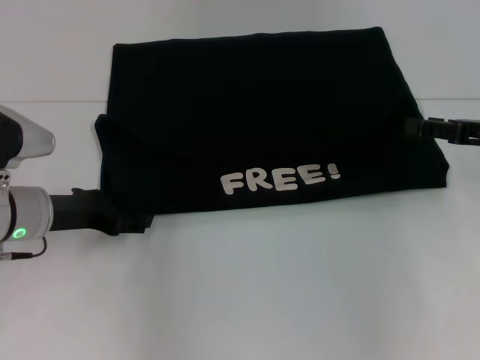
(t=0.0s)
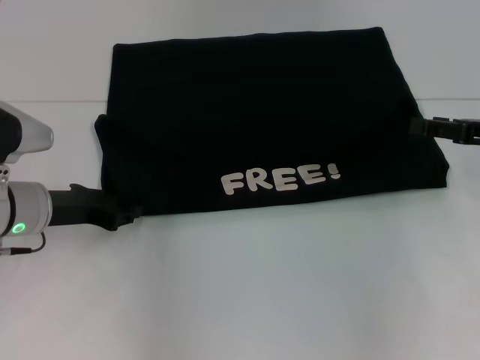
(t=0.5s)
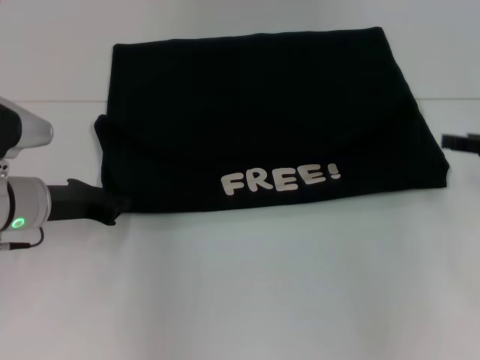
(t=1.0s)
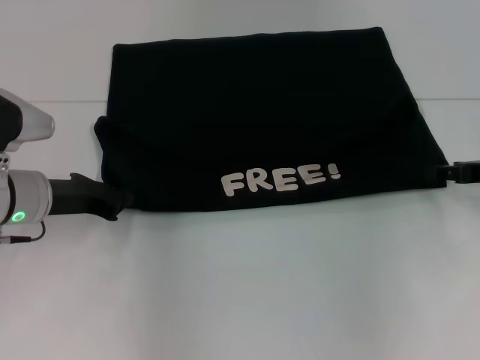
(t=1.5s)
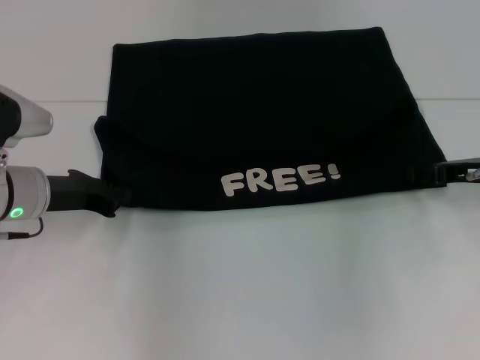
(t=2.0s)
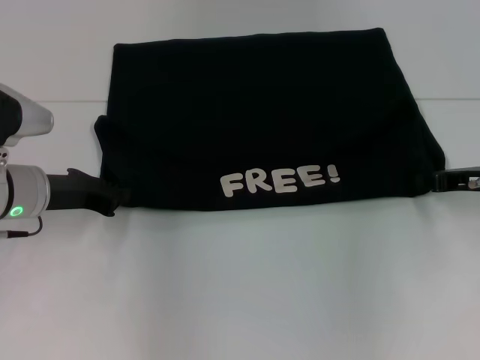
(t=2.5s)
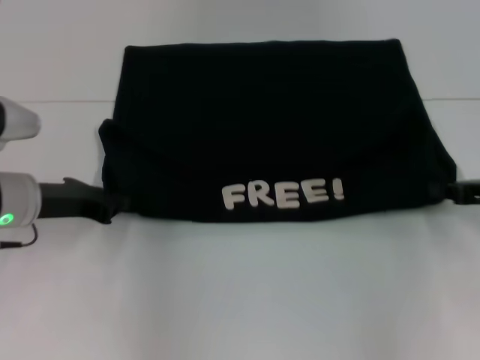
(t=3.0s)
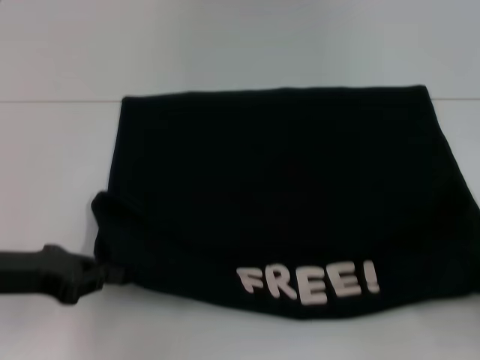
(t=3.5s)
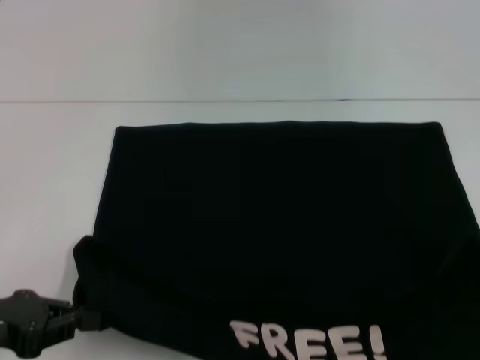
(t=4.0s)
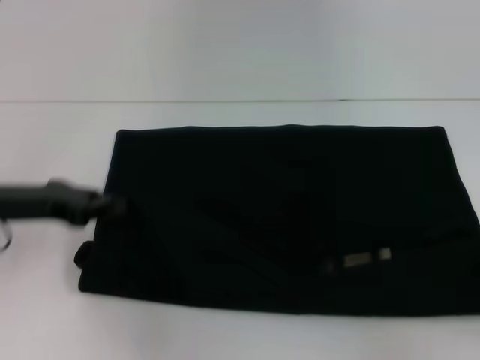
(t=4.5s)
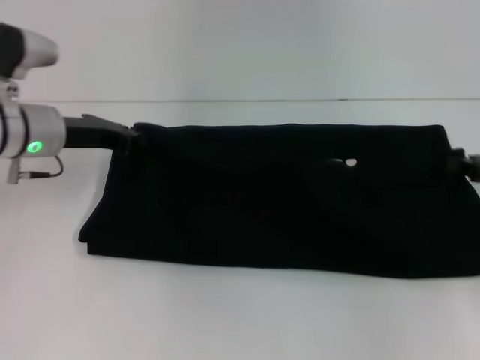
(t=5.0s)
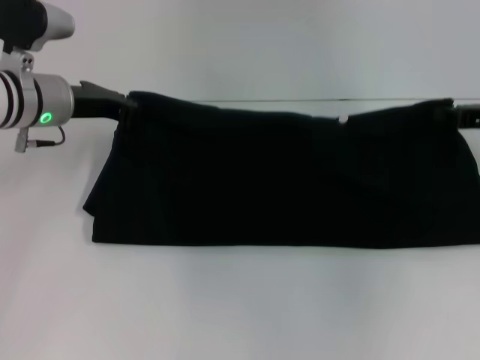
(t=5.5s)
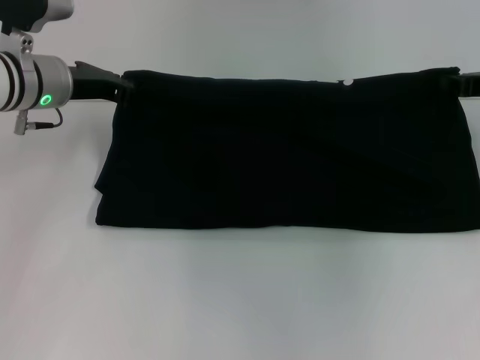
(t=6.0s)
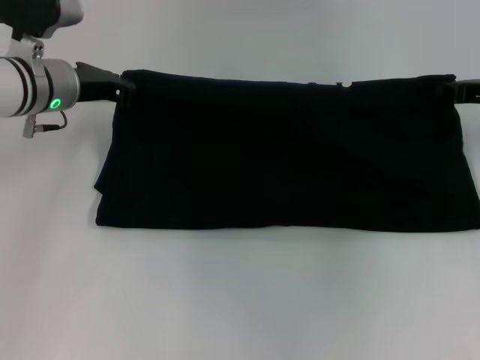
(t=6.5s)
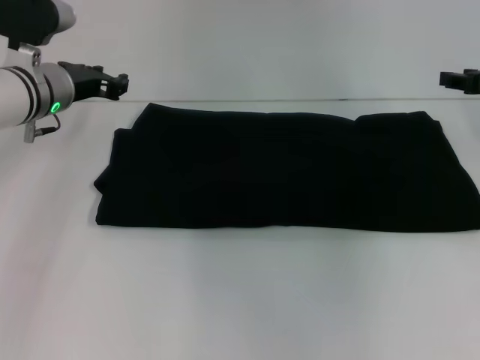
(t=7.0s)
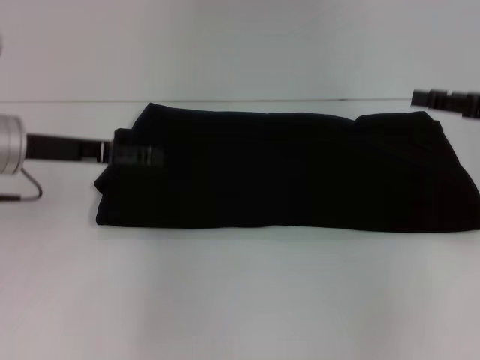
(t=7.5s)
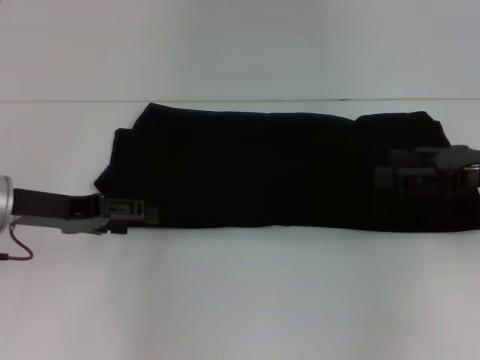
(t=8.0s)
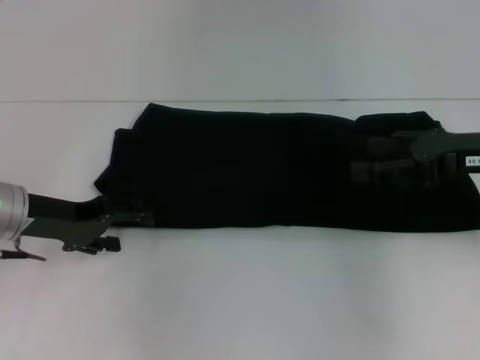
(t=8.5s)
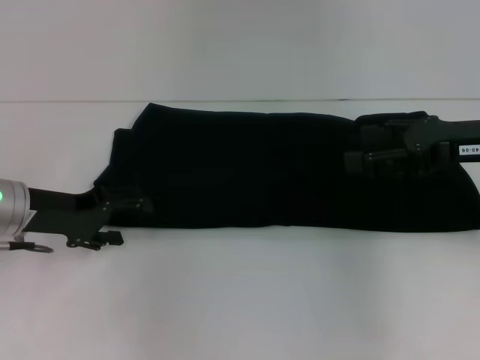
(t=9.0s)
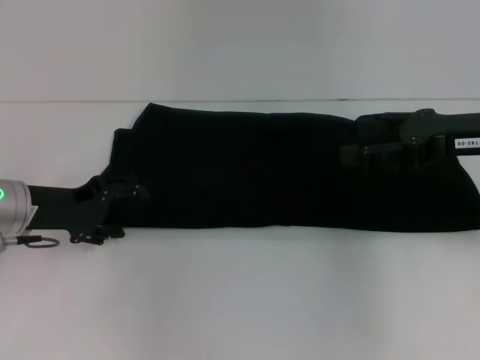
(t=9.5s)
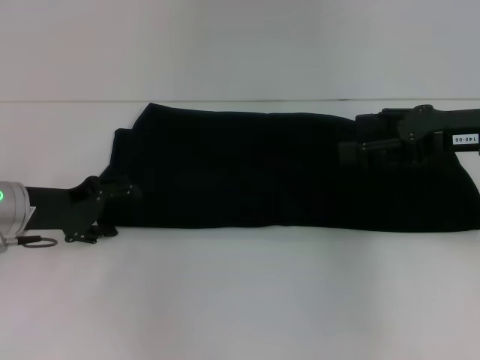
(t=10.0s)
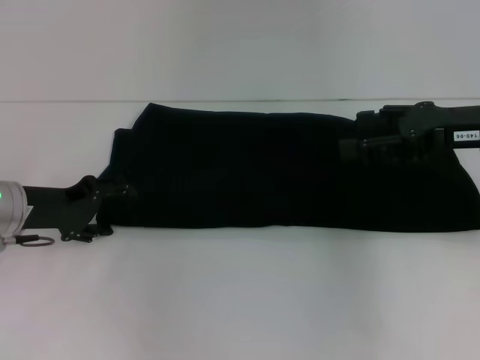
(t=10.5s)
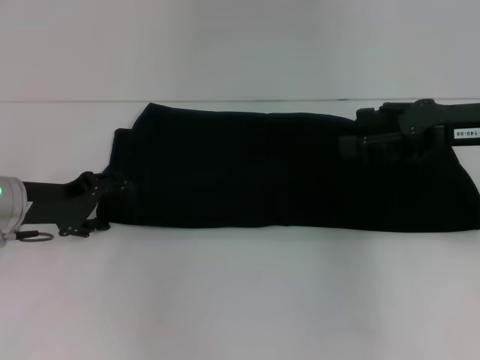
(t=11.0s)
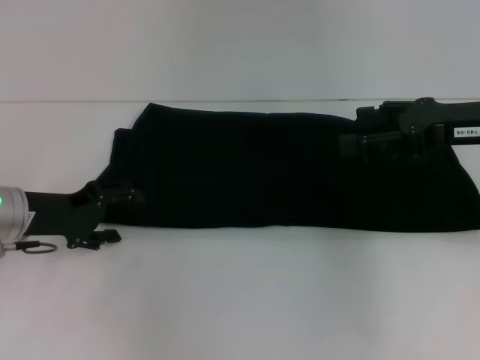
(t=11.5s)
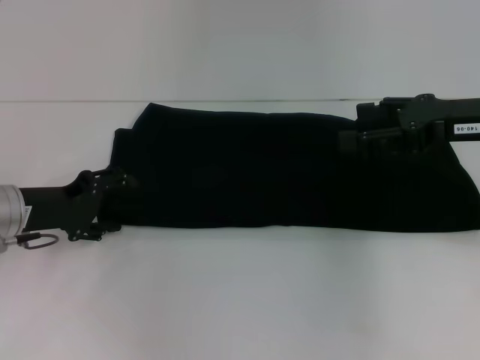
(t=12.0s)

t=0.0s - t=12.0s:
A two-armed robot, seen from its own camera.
Step, t=0.0s - t=4.0s: Pull the clothes with your left hand.
Step, t=0.0s - t=4.0s: Pull the clothes with your right hand.
Step, t=4.5s - t=7.0s: Fold the clothes with your right hand.
t=0.0s - t=2.0s: The left gripper closes its fingers. The right gripper moves approximately 5 cm.
t=2.0s - t=4.0s: The left gripper moves backward and to the left, about 15 cm; the right gripper goes about 25 cm backward, and closes.
t=4.0s - t=6.0s: Both grippers move forward, about 25 cm.
t=6.0s - t=8.0s: The two grippers go some 10 cm backward. The left gripper opens up, while the right gripper opens up.
t=8.0s - t=10.0s: The right gripper ends up roughly 5 cm from where it was.
t=10.0s - t=12.0s: The grippers make only small movements.

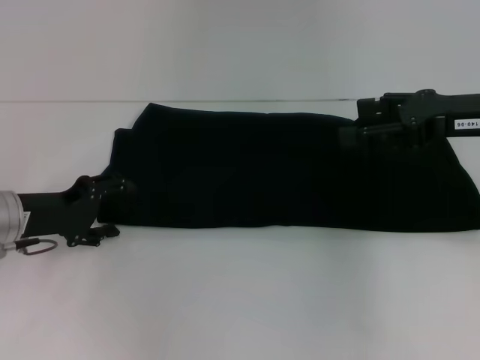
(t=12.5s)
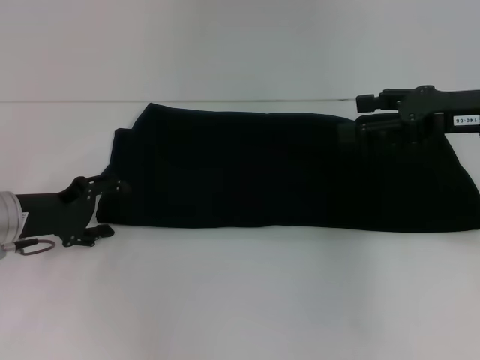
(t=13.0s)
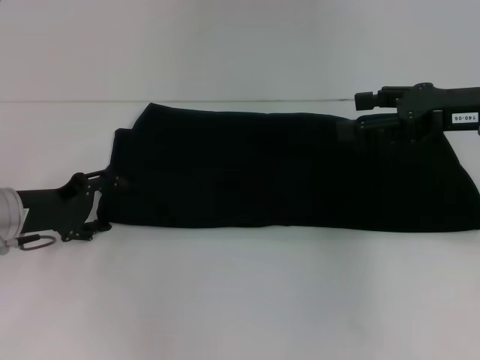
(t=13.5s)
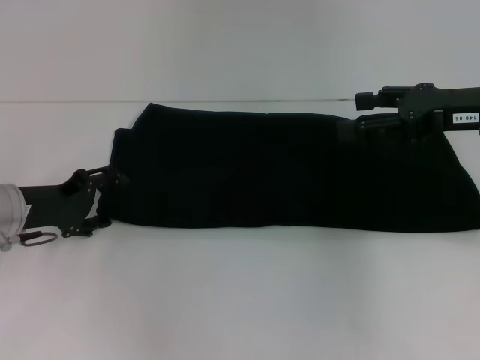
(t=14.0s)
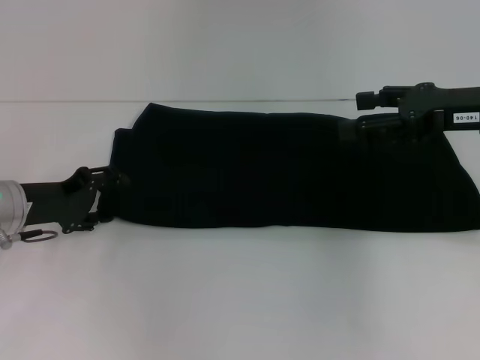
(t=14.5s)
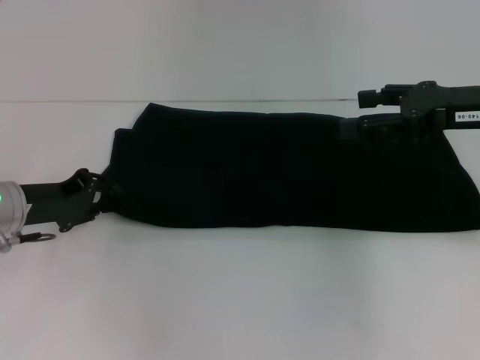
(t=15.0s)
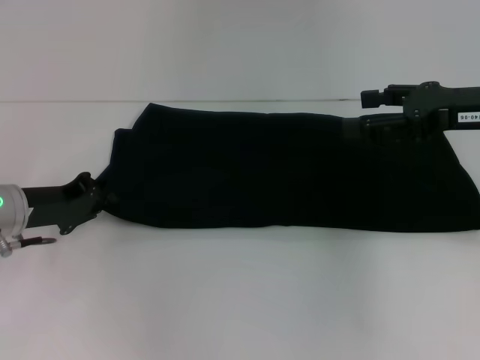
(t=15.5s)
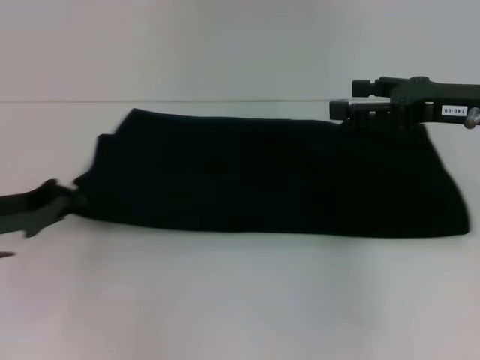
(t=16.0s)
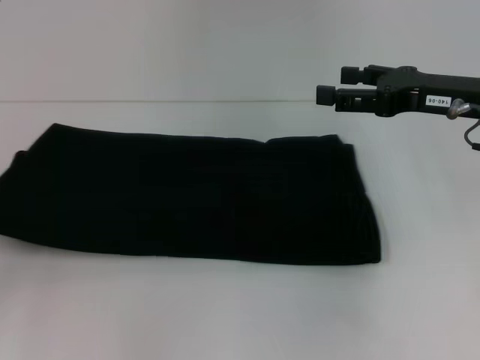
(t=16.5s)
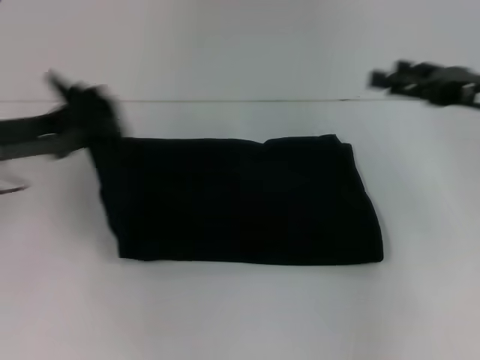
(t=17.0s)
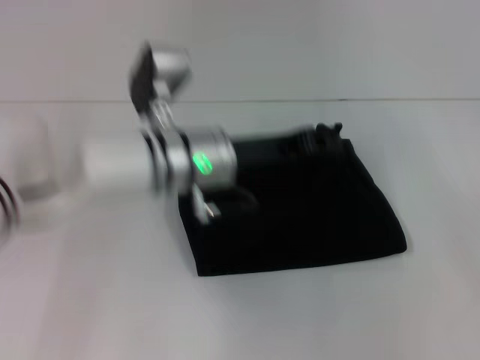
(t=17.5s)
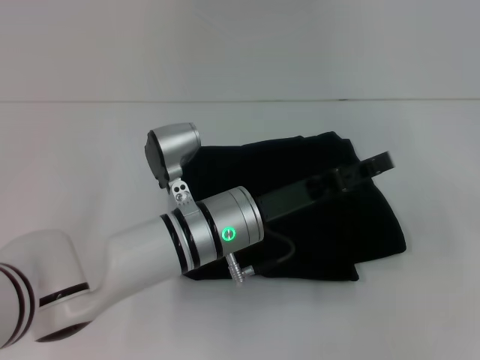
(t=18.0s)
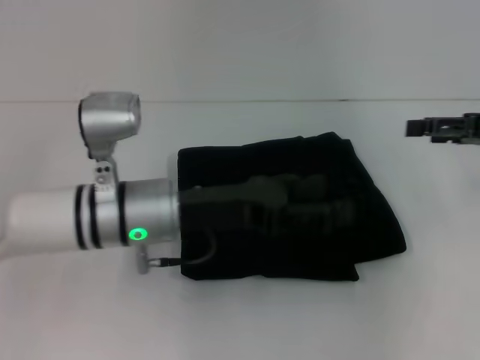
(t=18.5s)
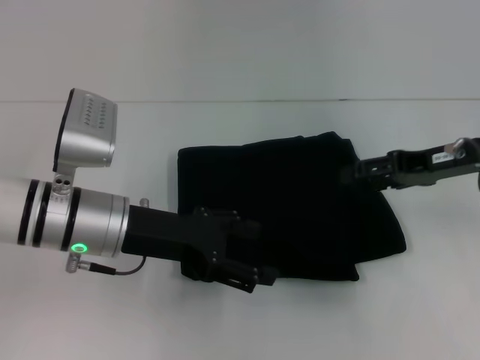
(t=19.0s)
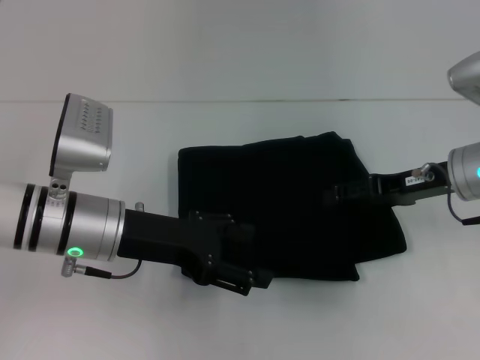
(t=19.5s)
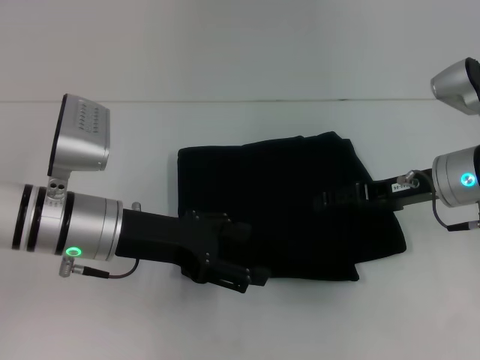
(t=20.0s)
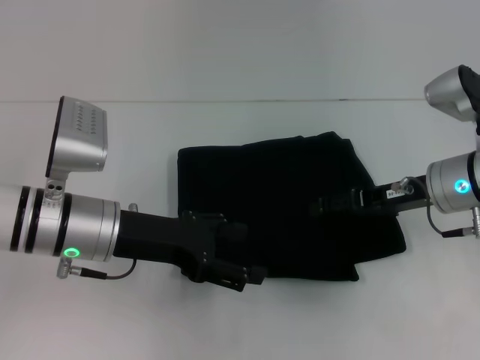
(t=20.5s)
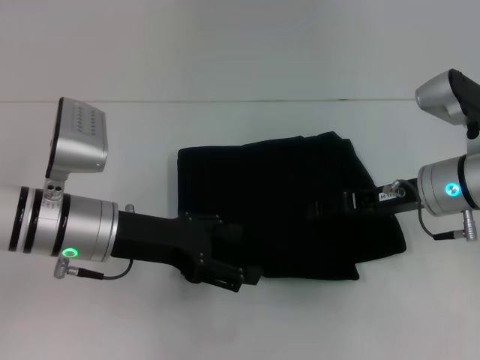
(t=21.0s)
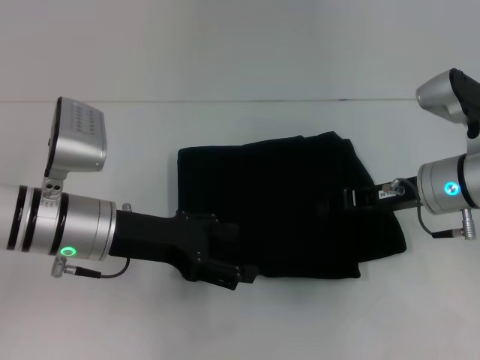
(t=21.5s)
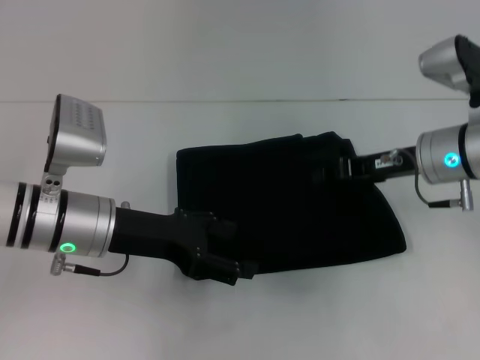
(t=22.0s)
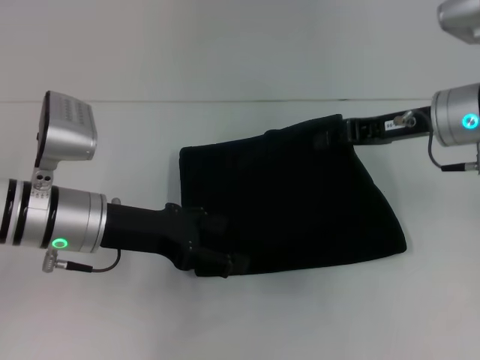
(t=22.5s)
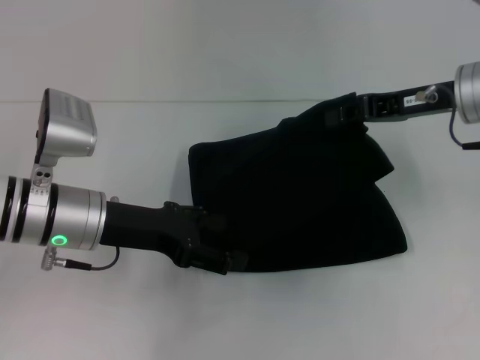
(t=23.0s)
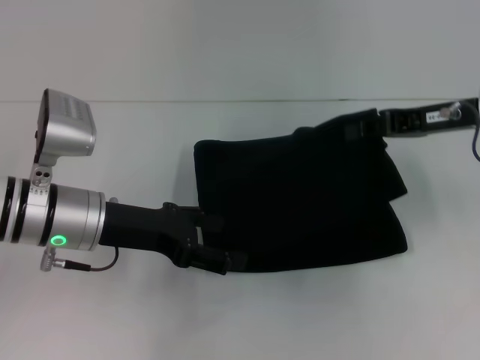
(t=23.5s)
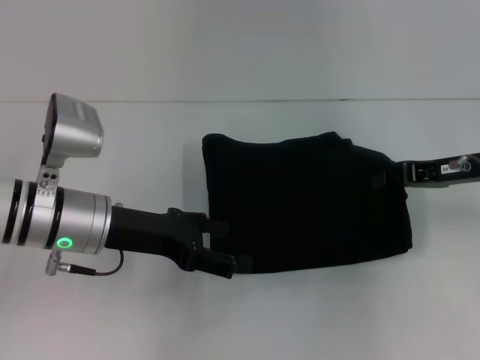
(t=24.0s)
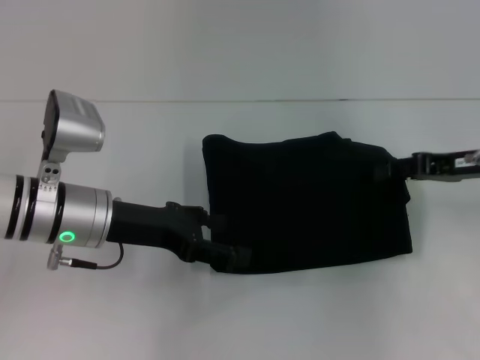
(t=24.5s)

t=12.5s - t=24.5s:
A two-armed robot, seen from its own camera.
Step, t=12.5s - t=18.0s: Fold the clothes with your left hand.
t=12.5s - t=14.5s: The grippers stay close to where they were, moving slightly.
t=14.5s - t=16.5s: The left gripper heads to the left and backward, covering approximately 15 cm, and closes its fingers.
t=16.5s - t=18.5s: The right gripper is displaced to the right by some 10 cm. Meanwhile the left gripper goes approximately 30 cm to the right, and opens its fingers.
t=18.5s - t=20.5s: The left gripper goes about 5 cm to the left. The right gripper goes some 10 cm to the left and downward.
t=20.5s - t=22.5s: The right gripper shifts roughly 5 cm upward, and closes.
t=22.5s - t=24.5s: The right gripper is displaced to the right by roughly 10 cm.

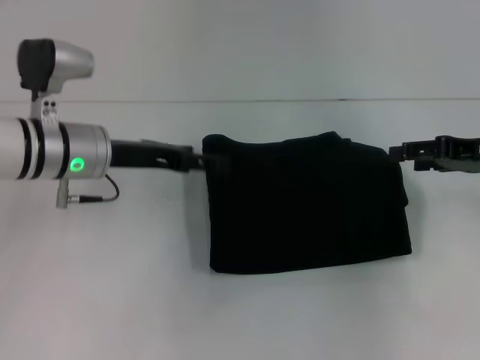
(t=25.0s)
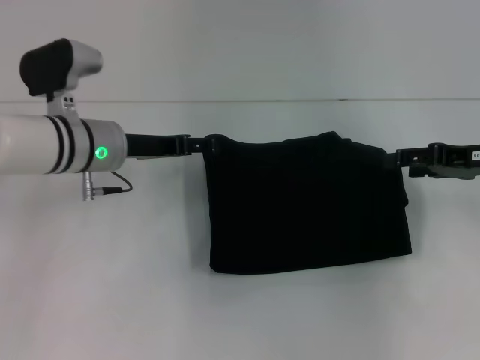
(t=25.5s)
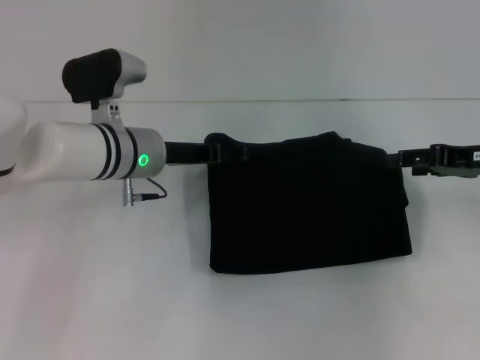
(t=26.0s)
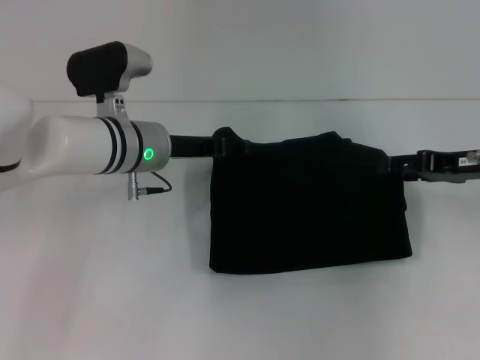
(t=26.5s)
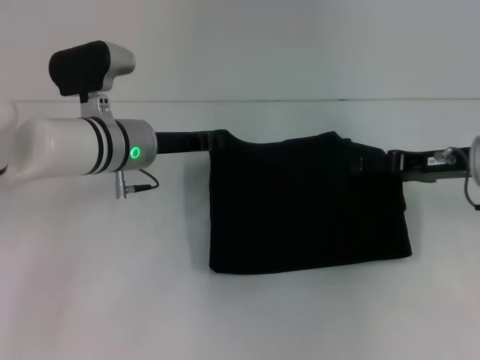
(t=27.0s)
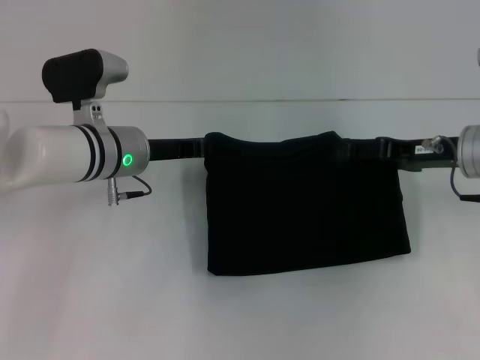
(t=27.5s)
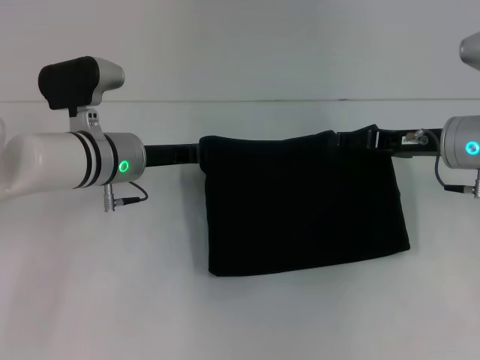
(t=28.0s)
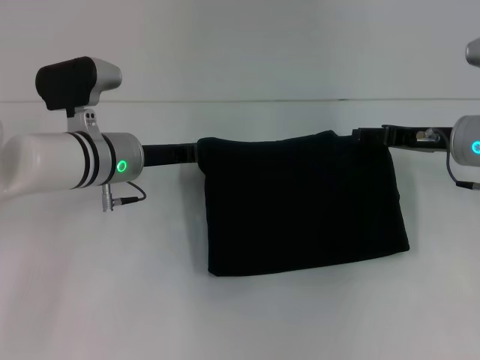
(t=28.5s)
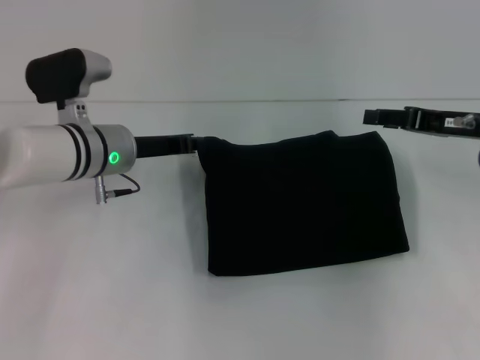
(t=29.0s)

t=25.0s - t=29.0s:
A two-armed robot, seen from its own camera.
t=25.0s - t=27.0s: The left gripper moves about 5 cm, and closes, while the right gripper shifts by some 5 cm.
t=27.0s - t=29.0s: The left gripper closes up.
